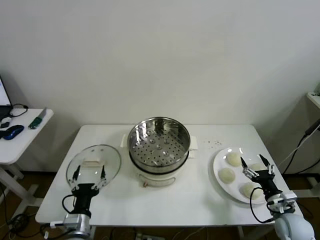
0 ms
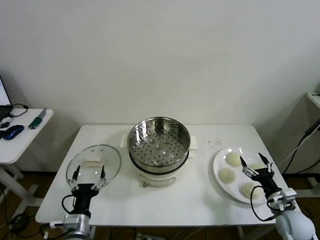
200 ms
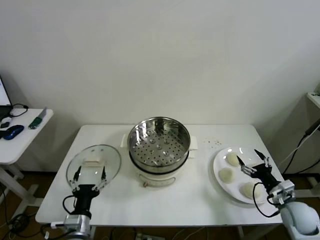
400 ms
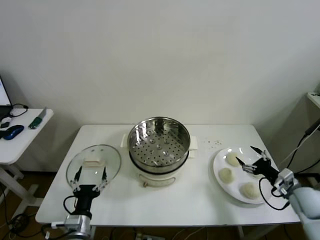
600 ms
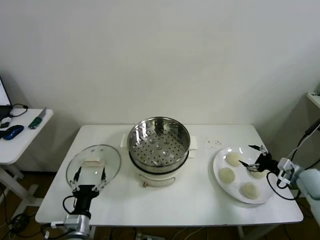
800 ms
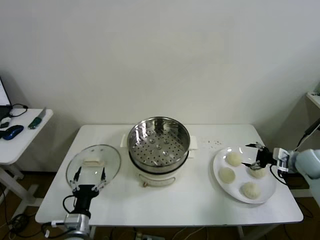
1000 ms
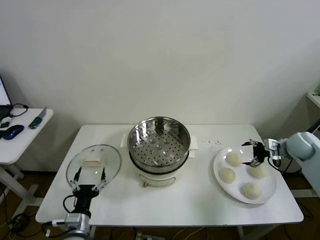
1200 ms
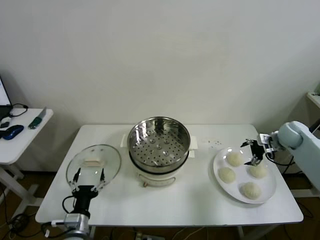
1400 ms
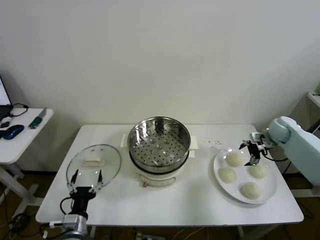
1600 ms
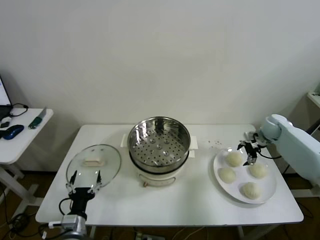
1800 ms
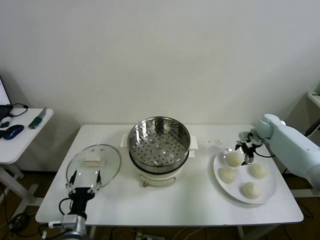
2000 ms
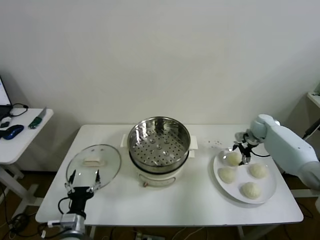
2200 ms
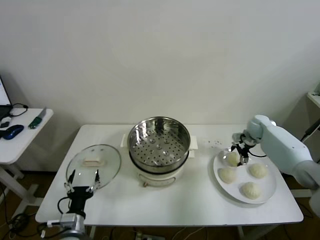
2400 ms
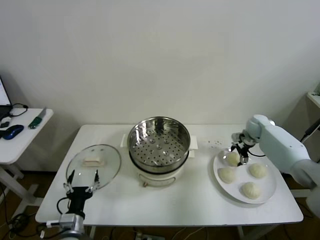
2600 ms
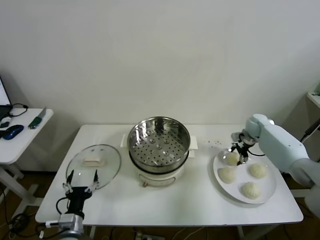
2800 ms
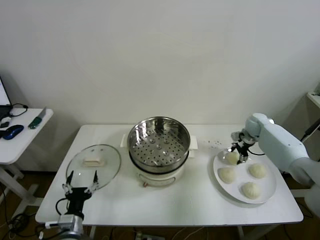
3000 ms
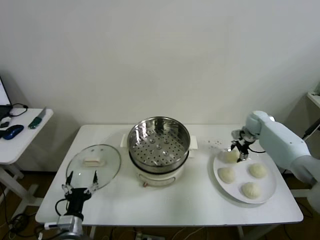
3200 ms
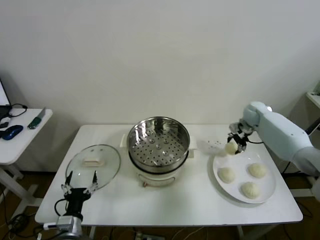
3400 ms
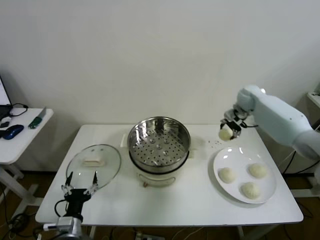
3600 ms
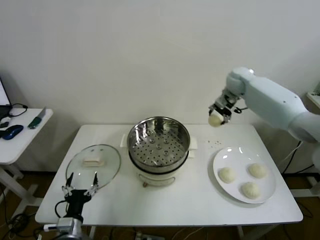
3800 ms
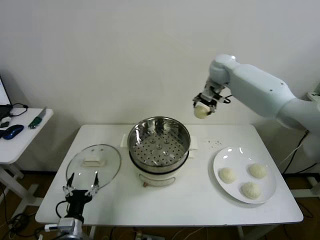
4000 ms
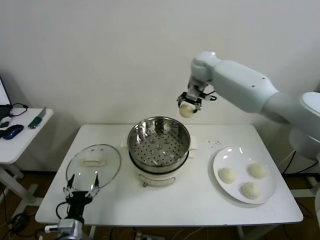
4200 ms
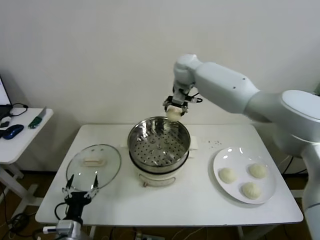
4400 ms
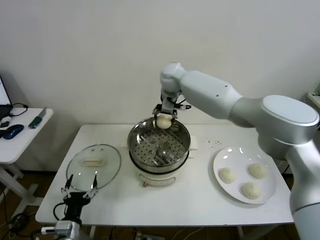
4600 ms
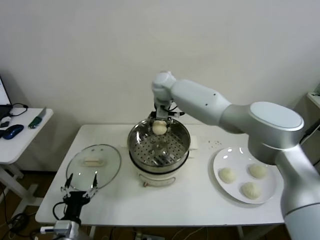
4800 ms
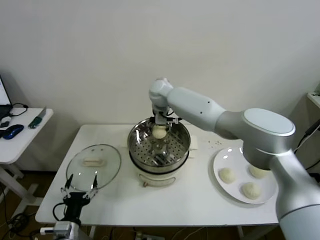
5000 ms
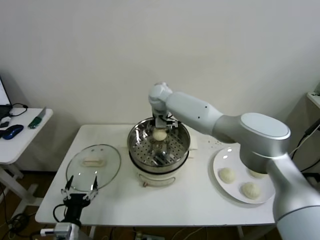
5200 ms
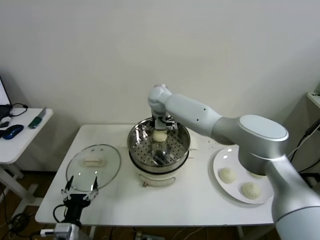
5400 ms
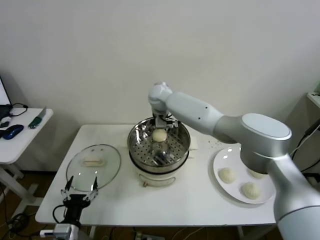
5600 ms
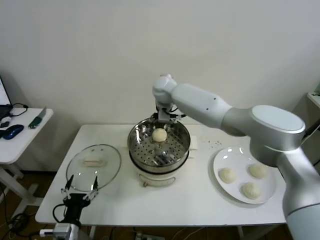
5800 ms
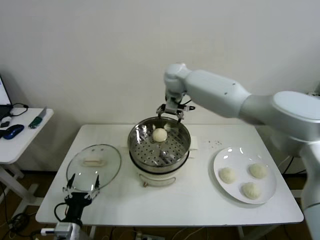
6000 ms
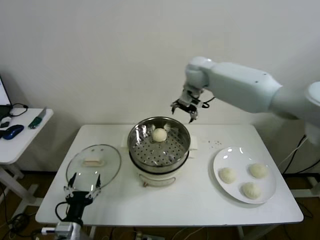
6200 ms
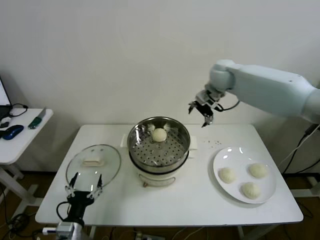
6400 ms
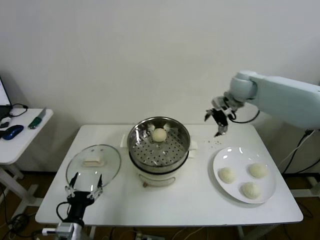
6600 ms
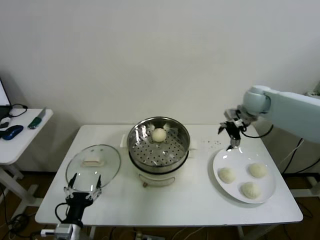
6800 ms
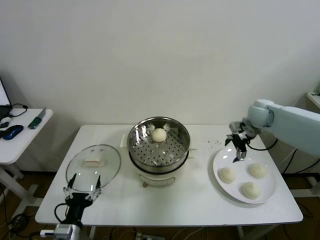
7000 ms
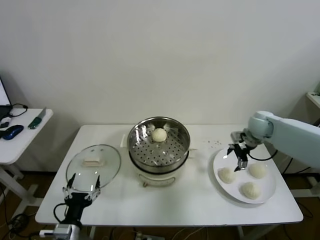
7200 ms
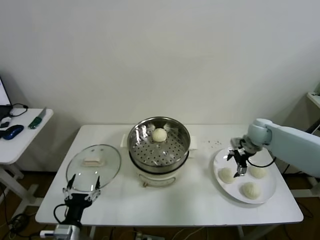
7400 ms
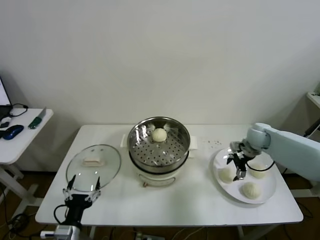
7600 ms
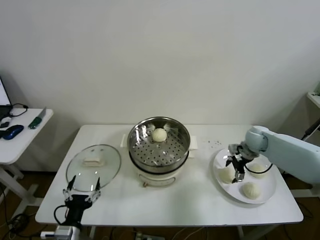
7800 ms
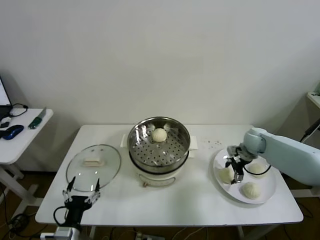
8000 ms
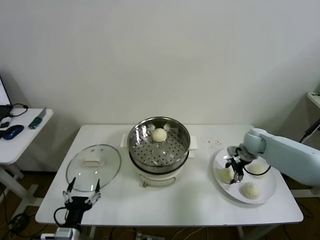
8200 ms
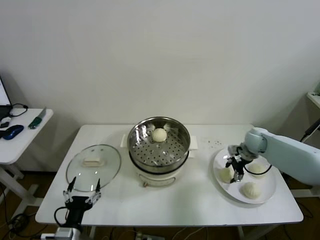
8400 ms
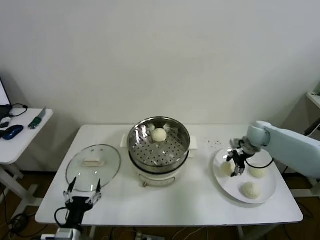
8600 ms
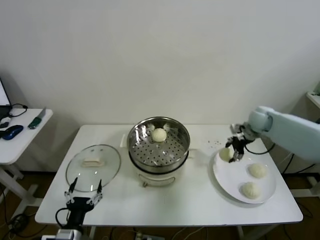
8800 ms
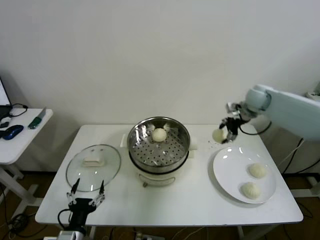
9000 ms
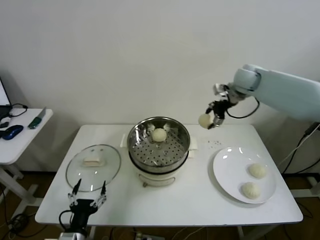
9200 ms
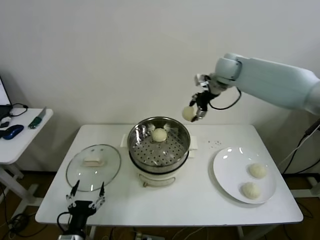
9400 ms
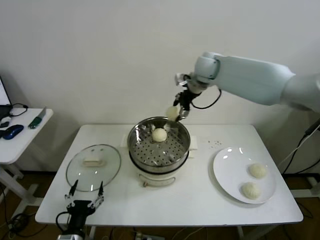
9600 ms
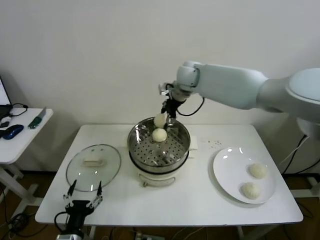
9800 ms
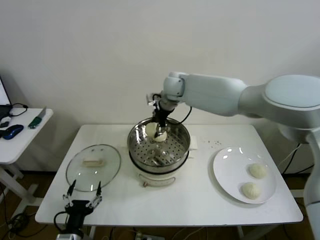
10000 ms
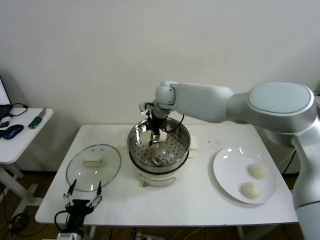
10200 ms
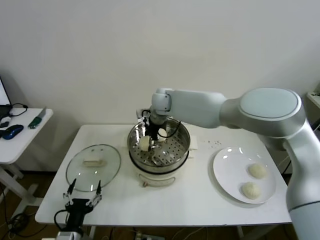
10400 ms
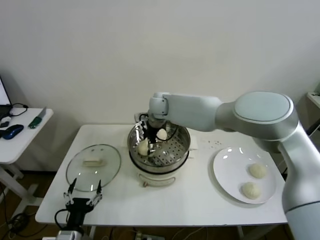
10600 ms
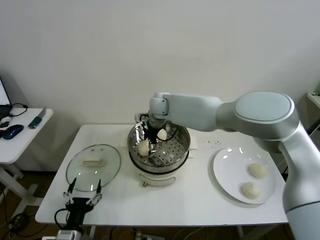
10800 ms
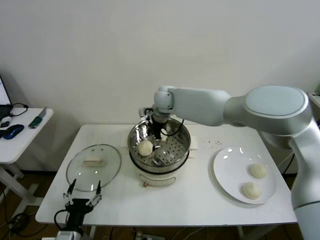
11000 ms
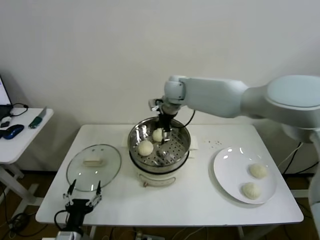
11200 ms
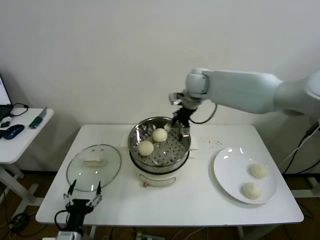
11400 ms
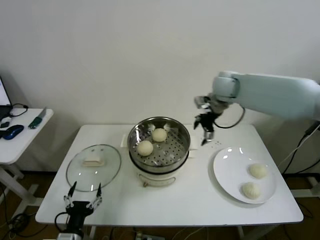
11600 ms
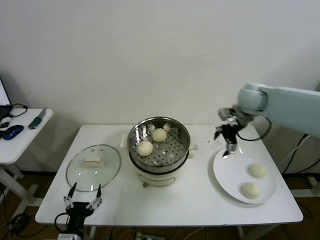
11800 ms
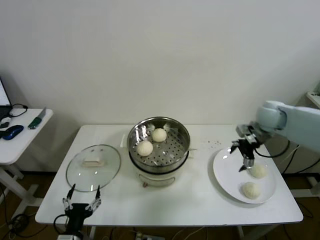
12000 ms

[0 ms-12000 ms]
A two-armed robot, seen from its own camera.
Step, 0 ms to 2800 ms: Grasp the baozi in the plate with right gripper.
Step, 3000 ms to 5200 ms: Place the baozi on the steamer with right gripper.
Step, 5400 ms to 8000 ms: Grasp the baozi in the plate with right gripper.
Step, 8200 ms to 10400 ms: Place the baozi on the steamer with right gripper.
1600 ms to 3000 ms: The right gripper heads forward and to the left, covering some 10 cm, and closes its fingers.
3000 ms to 4400 ms: The right gripper is displaced to the left and upward by approximately 40 cm.
4400 ms to 6000 ms: The right gripper goes downward and returns, approximately 10 cm each way, and opens its fingers.
6000 ms to 7600 ms: The right gripper shifts some 35 cm to the right and downward.
7600 ms to 9000 ms: The right gripper travels upward and forward by some 15 cm, and closes.
9000 ms to 10400 ms: The right gripper moves to the left, about 35 cm.
10400 ms to 12000 ms: The right gripper travels to the right by roughly 35 cm, and opens its fingers.

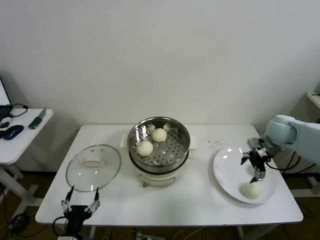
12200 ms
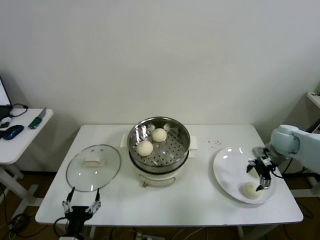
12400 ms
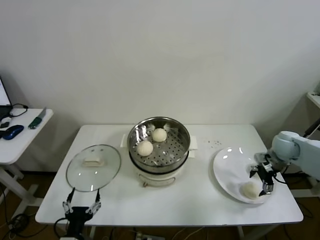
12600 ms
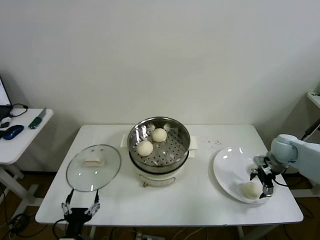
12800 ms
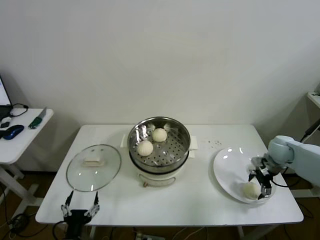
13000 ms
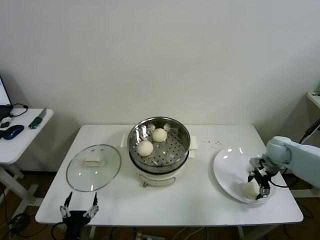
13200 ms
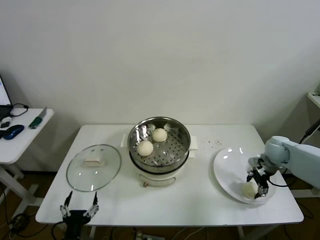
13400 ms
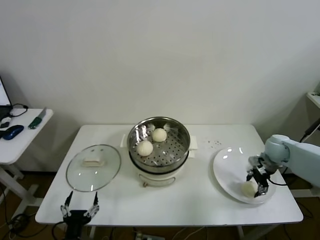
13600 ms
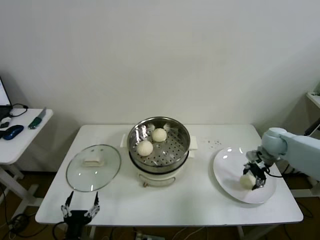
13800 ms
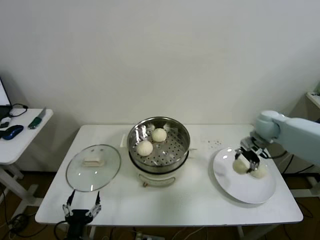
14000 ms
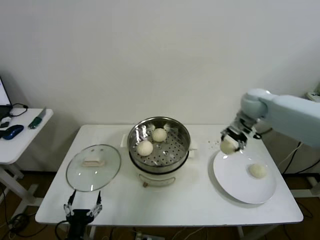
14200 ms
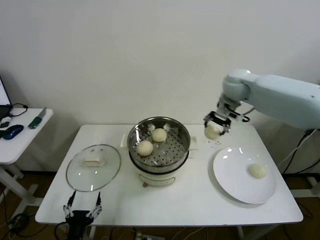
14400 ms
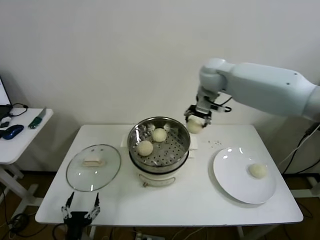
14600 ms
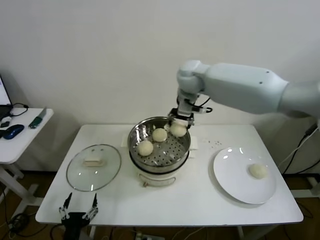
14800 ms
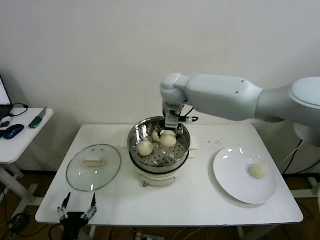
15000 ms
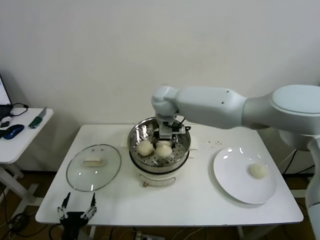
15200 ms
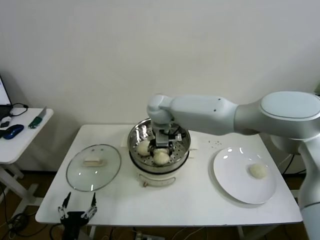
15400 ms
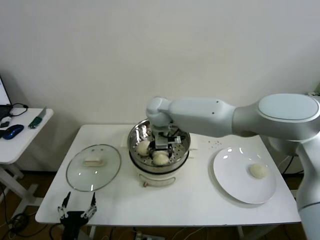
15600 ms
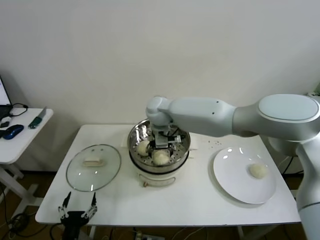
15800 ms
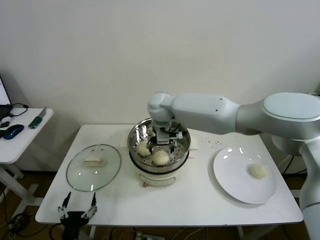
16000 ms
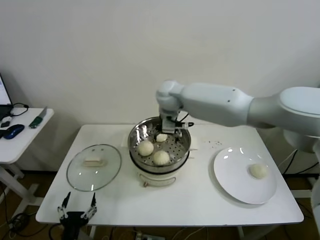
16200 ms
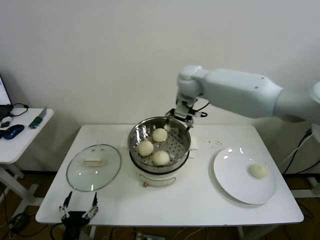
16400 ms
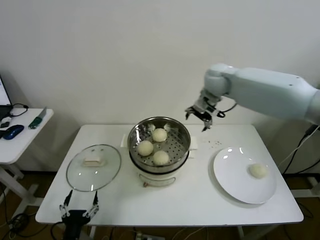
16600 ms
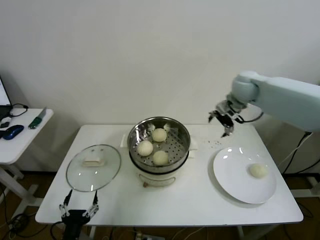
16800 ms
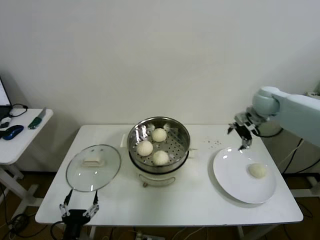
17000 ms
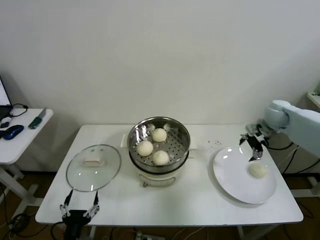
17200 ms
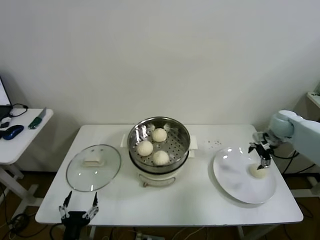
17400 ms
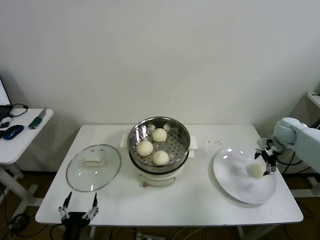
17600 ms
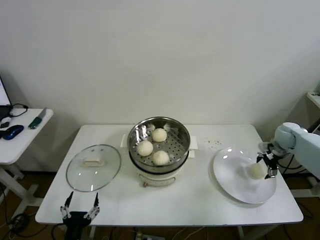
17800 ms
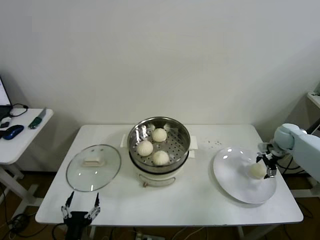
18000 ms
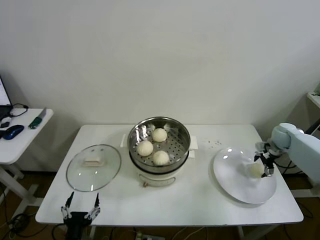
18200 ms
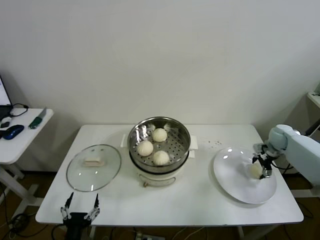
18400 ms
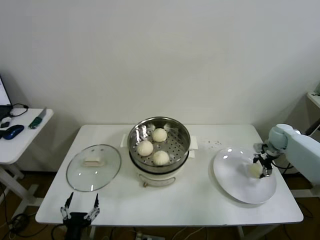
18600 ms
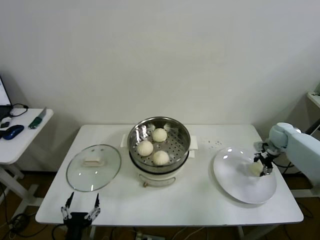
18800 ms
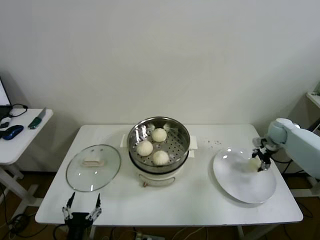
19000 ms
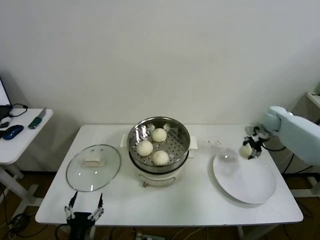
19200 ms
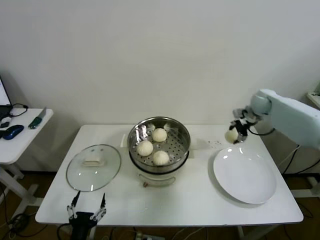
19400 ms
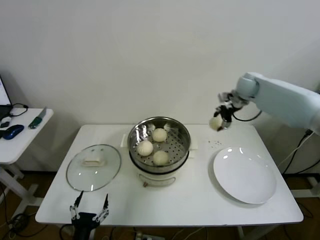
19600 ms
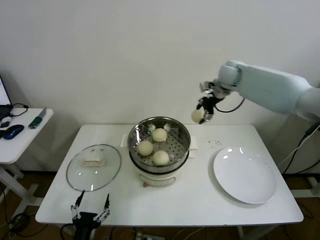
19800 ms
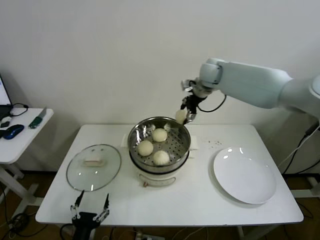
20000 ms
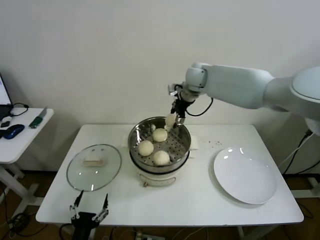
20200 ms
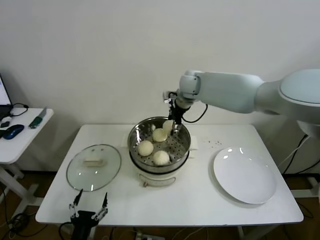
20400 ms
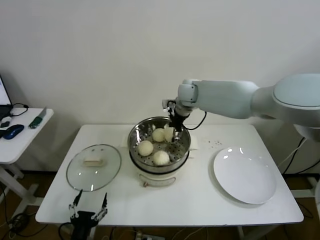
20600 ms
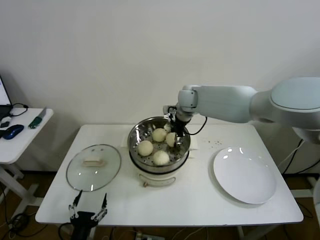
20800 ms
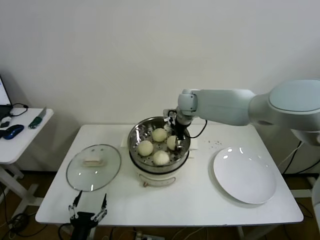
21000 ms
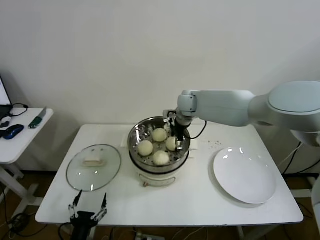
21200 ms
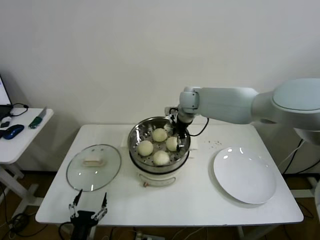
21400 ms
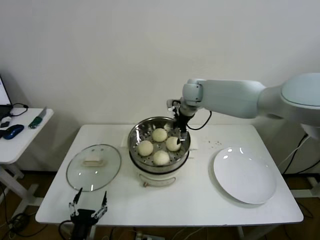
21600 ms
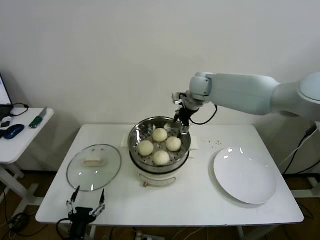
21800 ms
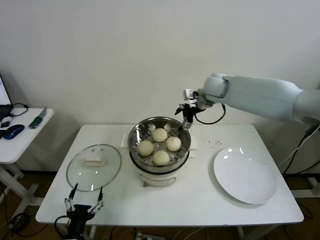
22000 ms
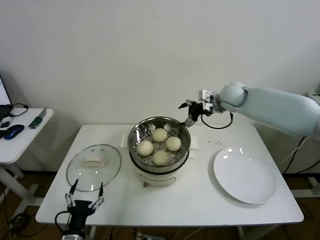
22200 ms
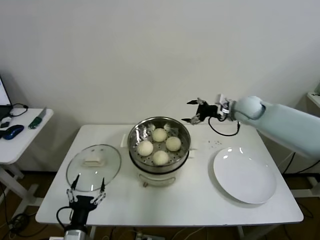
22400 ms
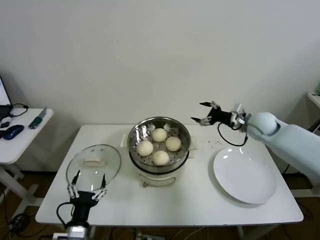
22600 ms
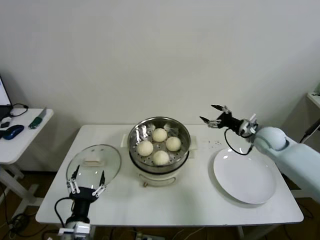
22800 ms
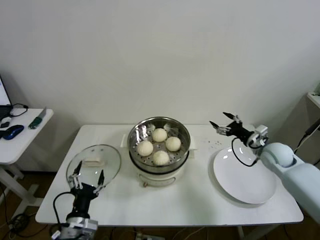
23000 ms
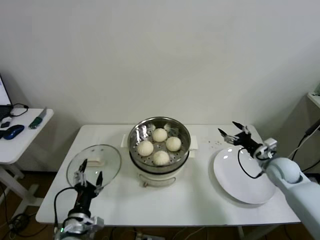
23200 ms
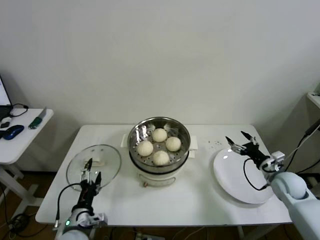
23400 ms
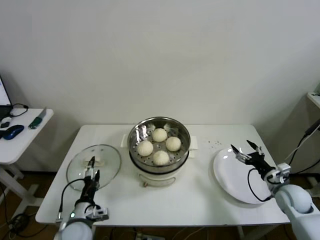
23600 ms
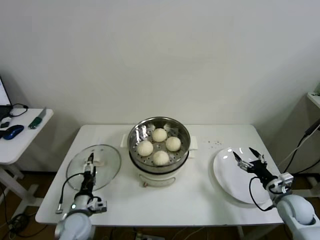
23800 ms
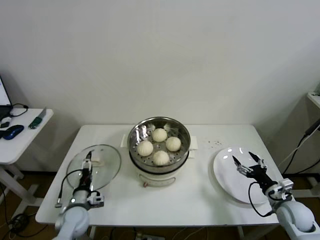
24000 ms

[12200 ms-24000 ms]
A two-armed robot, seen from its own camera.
Step, 13400 ms to 15600 ms: Place the baozi on the steamer with right gripper.
Step, 15800 ms to 18600 ms: Grasp the baozi in the plate with right gripper.
Step, 18800 ms to 21200 ms: Place the baozi on the steamer with right gripper.
12200 ms to 13600 ms: The right gripper travels downward by some 10 cm, and closes up.
13600 ms to 15200 ms: The right gripper moves to the left and upward, approximately 50 cm.
15200 ms to 16600 ms: The right gripper heads to the right, covering approximately 15 cm, and opens.
16600 ms to 18200 ms: The right gripper is displaced to the right and downward by about 40 cm.
18200 ms to 19600 ms: The right gripper is displaced upward, to the left and forward by roughly 25 cm, and closes.
19600 ms to 21000 ms: The right gripper travels to the left by roughly 20 cm.
21000 ms to 22600 ms: The left gripper ends up approximately 5 cm from where it was; the right gripper shifts about 25 cm to the right, and opens up.
22600 ms to 24000 ms: The right gripper heads backward and downward, covering some 30 cm, while the left gripper goes roughly 15 cm forward and downward.
